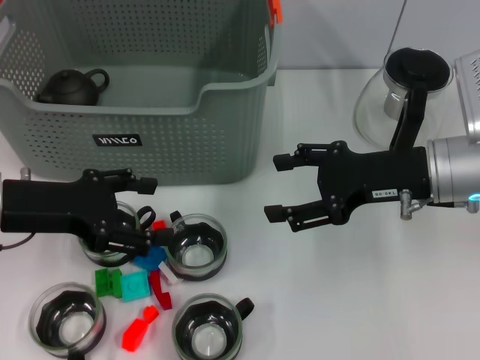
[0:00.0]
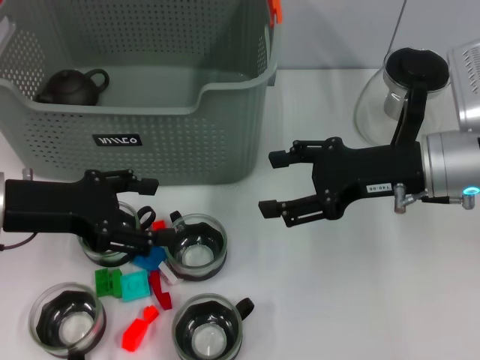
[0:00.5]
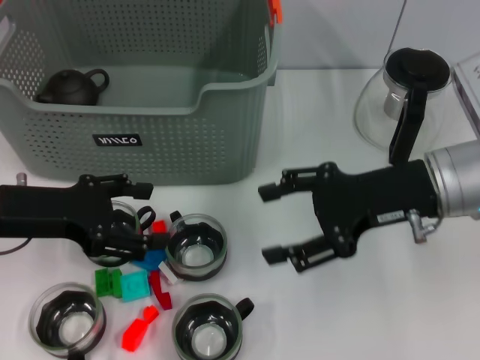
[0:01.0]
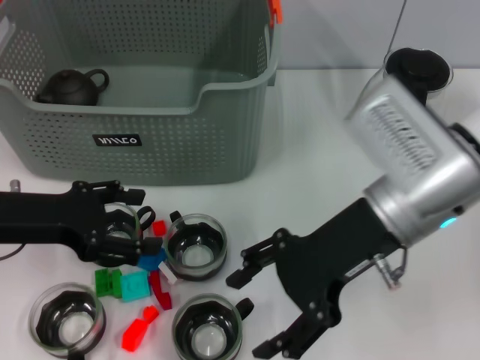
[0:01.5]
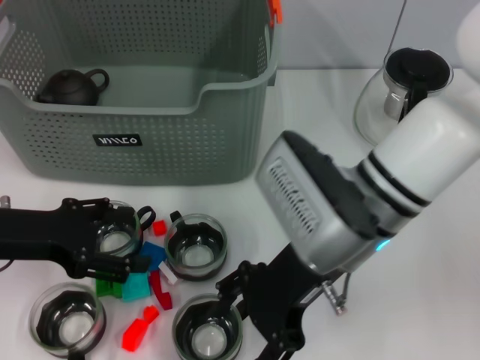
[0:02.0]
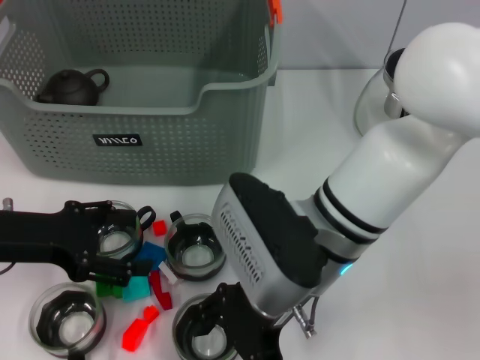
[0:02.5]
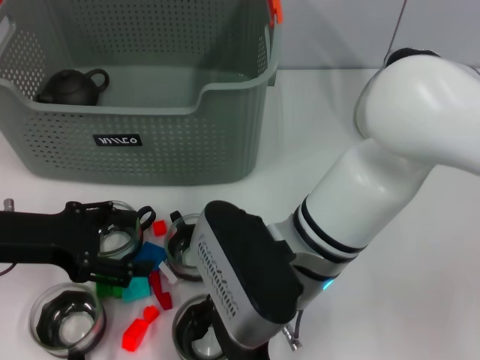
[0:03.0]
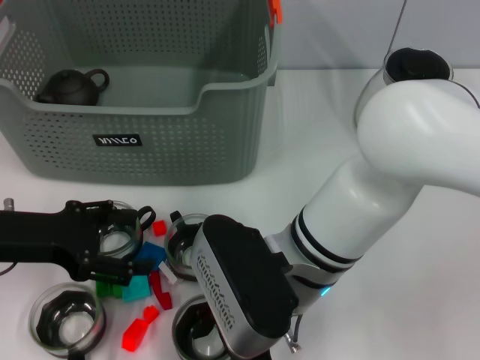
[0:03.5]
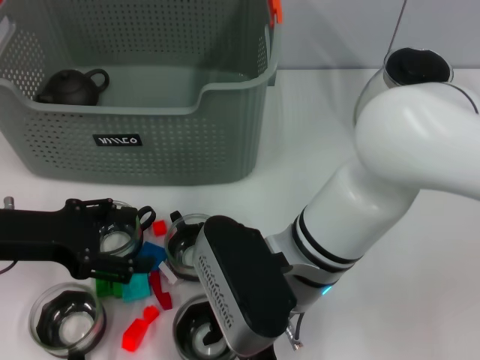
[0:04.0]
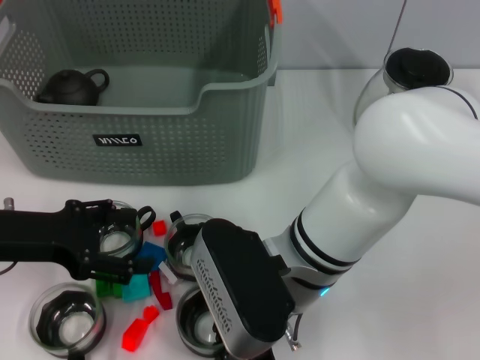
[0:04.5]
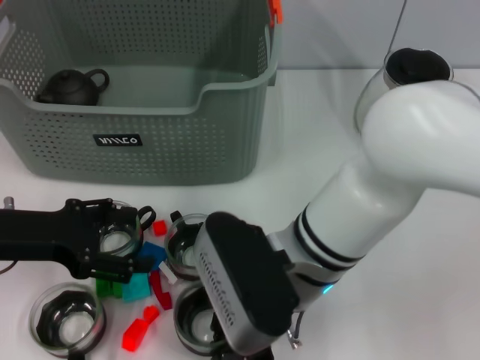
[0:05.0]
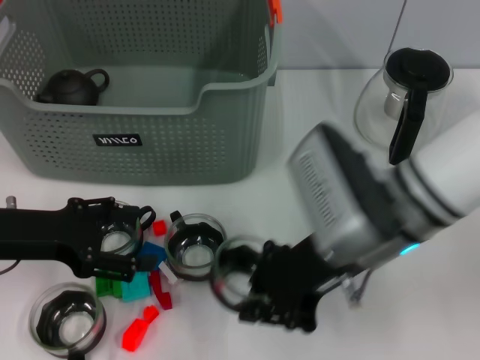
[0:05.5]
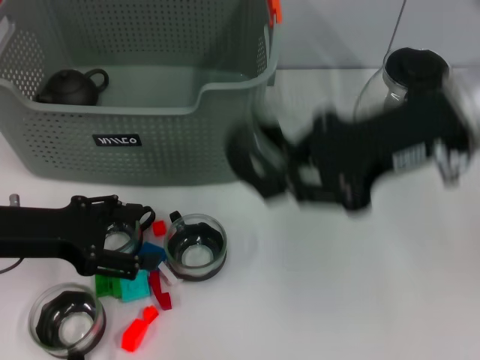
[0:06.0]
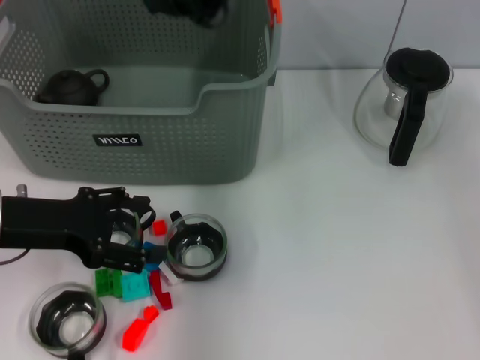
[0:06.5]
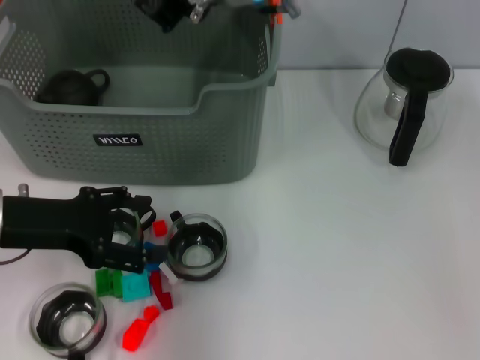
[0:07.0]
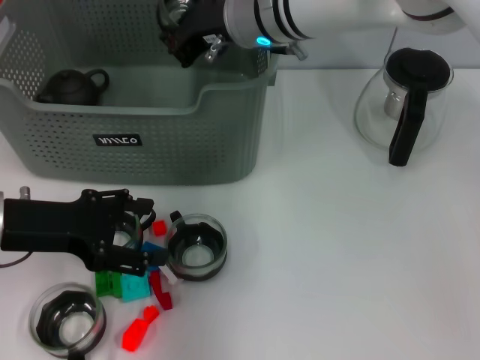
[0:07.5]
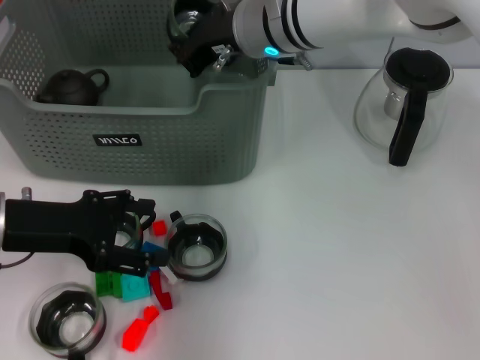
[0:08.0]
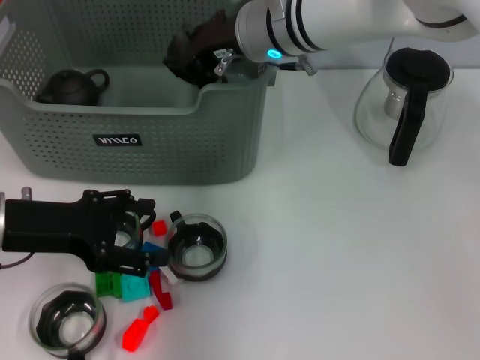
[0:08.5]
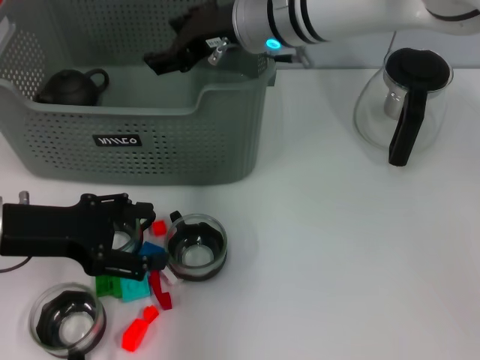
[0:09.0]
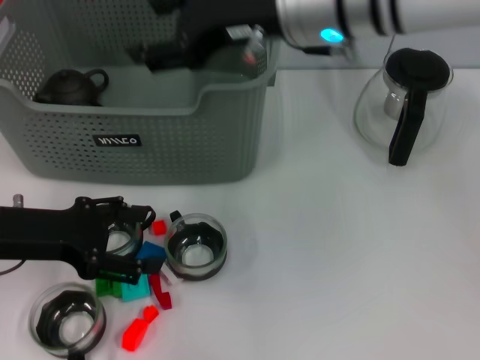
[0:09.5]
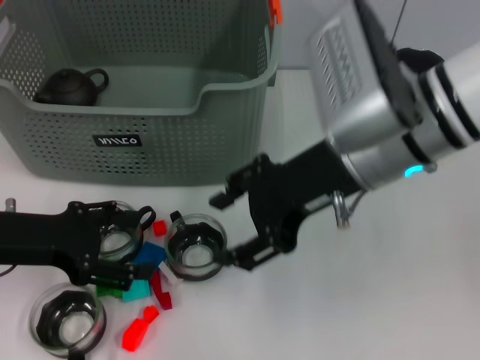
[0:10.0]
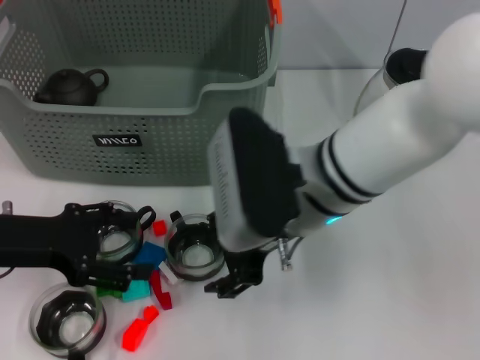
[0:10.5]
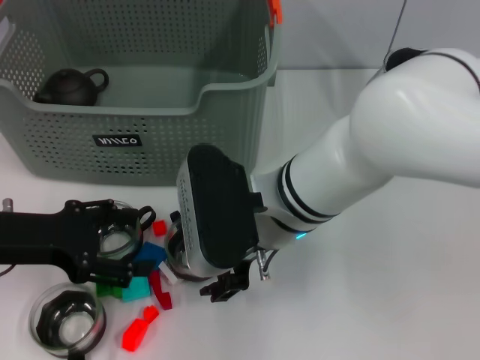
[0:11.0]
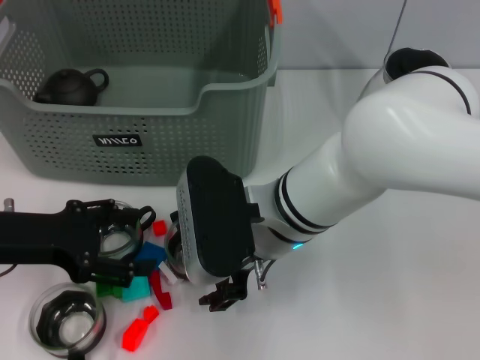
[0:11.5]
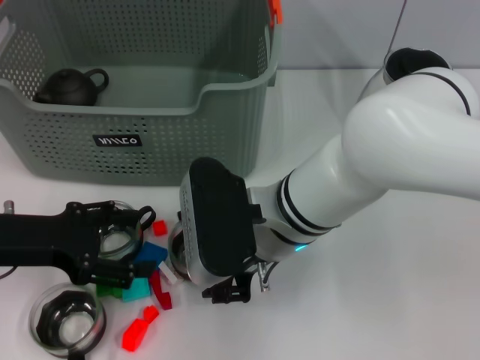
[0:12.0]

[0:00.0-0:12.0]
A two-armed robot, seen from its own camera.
Task of the whole recording: pick up the teacup on the table and place it into the storage bin, pick up the block on the table and place it into the storage bin.
Step, 0.0 to 5.0 s: Grasp the cup with right gripper.
Step, 5.5 to 9.0 s: Place the cup in the storage box with right gripper.
0.0 to 2.0 s: The right gripper shifts about 10 cm to the left.
2.0 to 4.0 s: The right gripper changes place by some 5 cm.
4.0 to 6.0 s: The right gripper heads upward and to the right, covering roughly 20 cm, and closes.
6.0 to 8.0 s: The right gripper travels to the left and forward by about 20 cm.
8.0 to 10.0 s: The right gripper is displaced backward and to the right by about 15 cm, and opens up.
10.0 to 12.0 s: The right gripper goes approximately 10 cm downward and to the left.

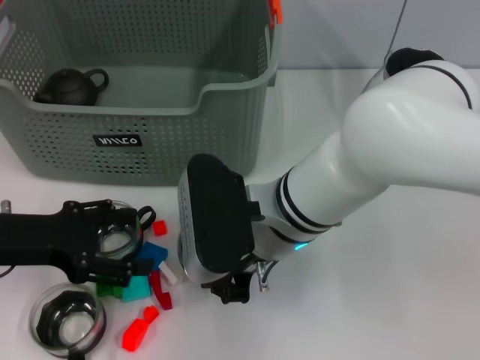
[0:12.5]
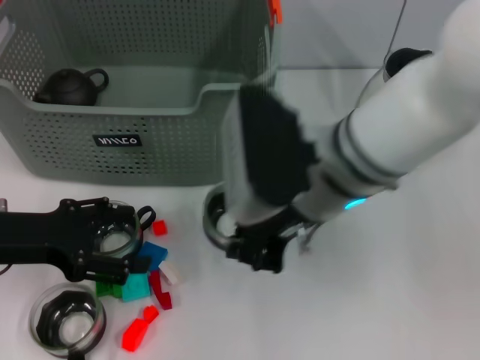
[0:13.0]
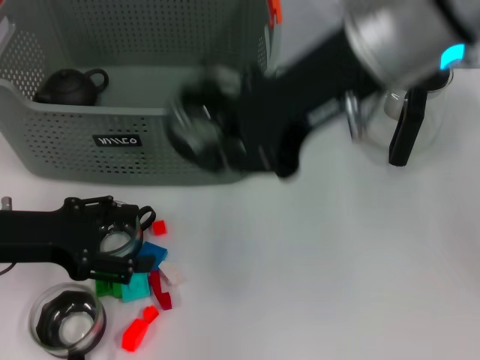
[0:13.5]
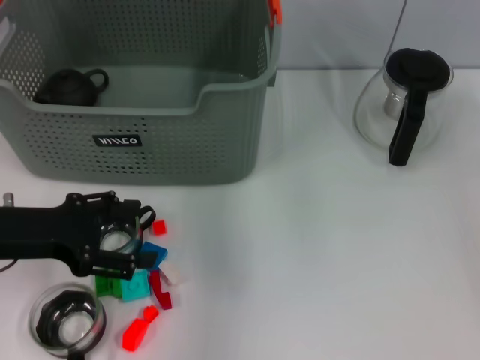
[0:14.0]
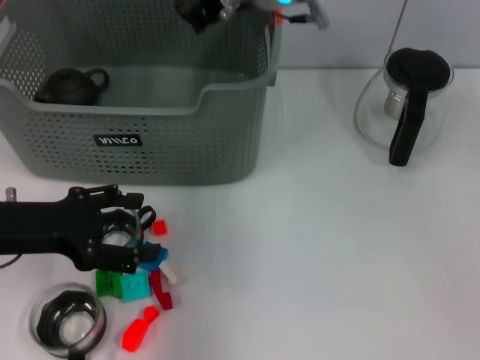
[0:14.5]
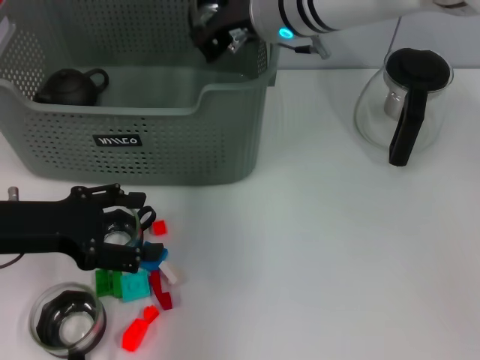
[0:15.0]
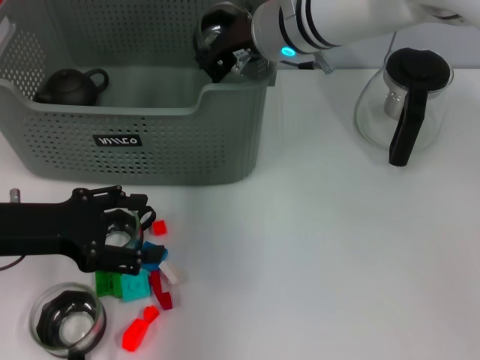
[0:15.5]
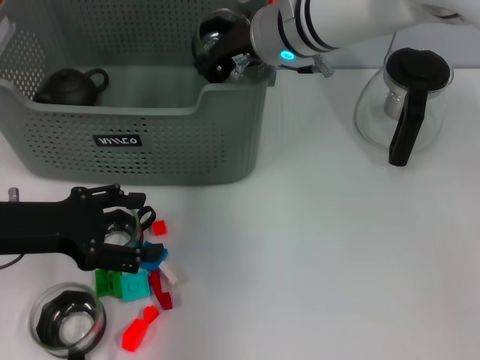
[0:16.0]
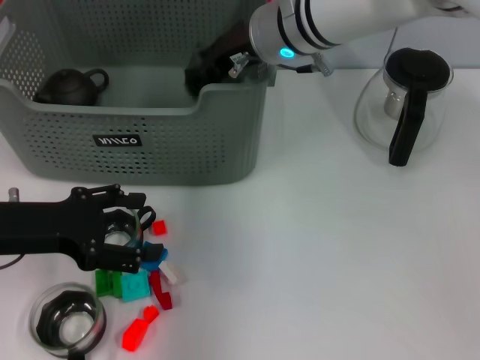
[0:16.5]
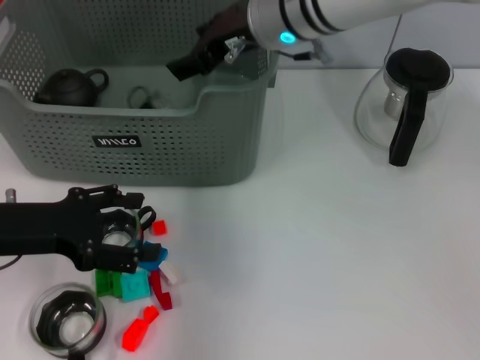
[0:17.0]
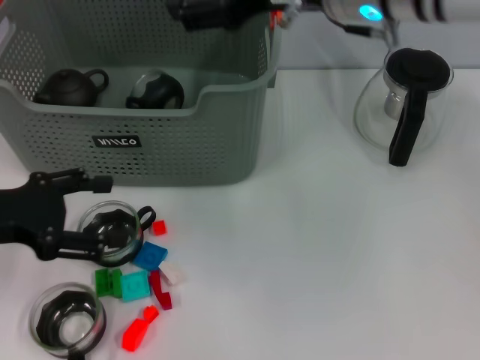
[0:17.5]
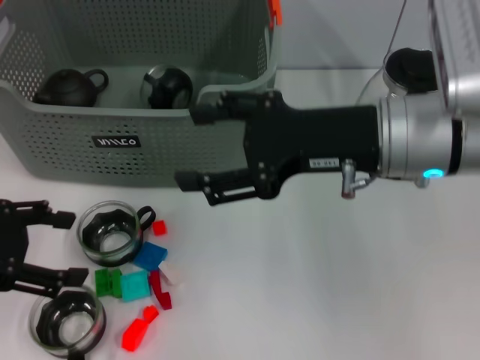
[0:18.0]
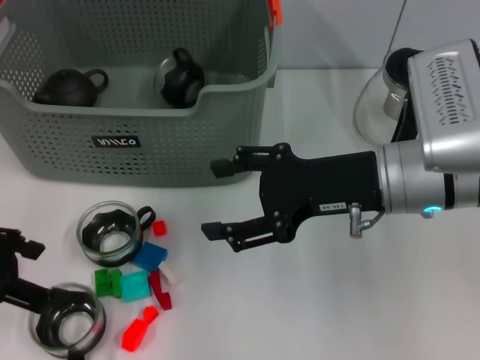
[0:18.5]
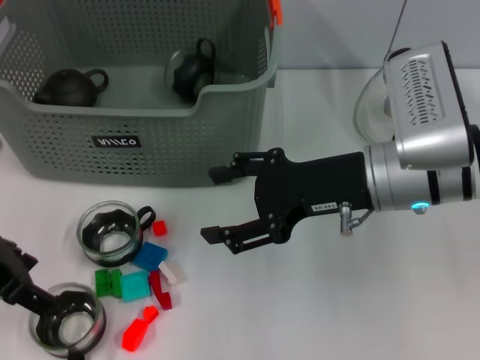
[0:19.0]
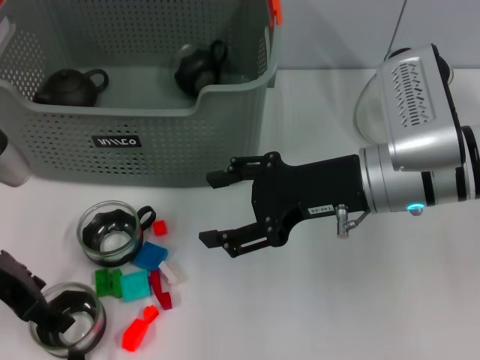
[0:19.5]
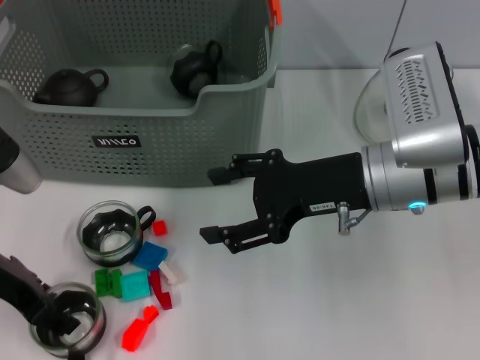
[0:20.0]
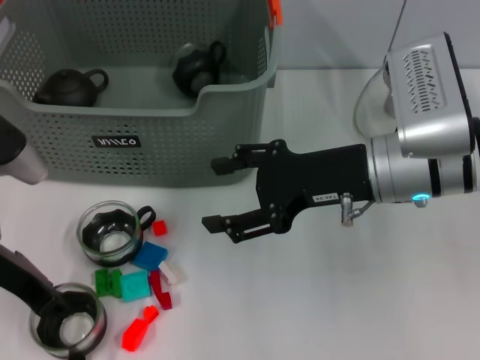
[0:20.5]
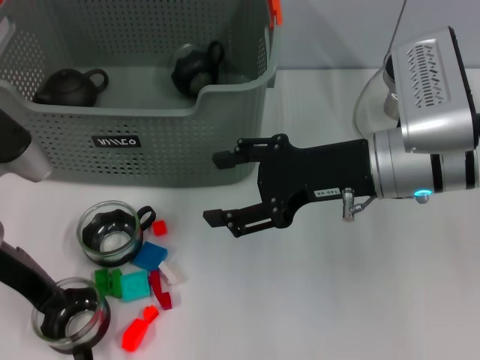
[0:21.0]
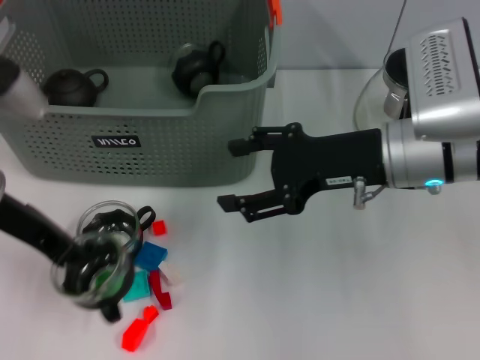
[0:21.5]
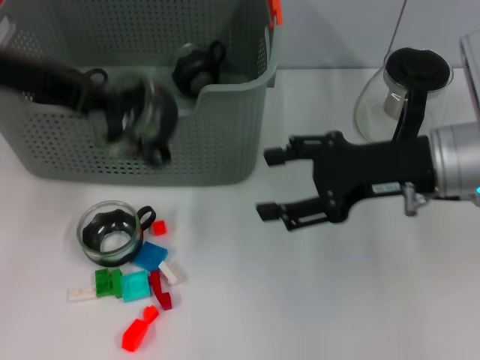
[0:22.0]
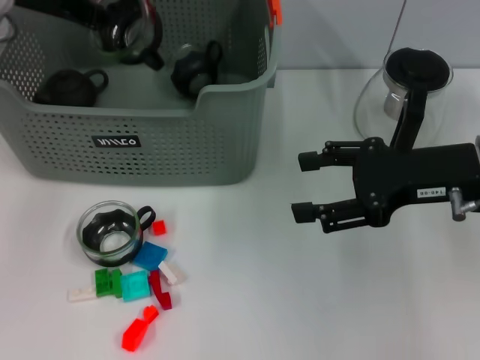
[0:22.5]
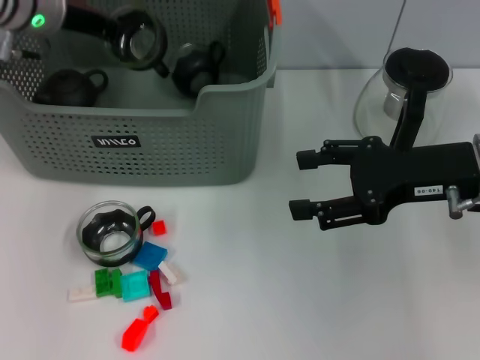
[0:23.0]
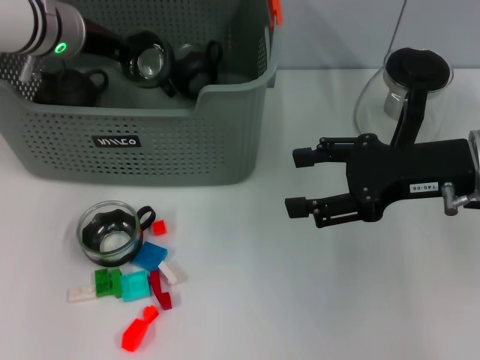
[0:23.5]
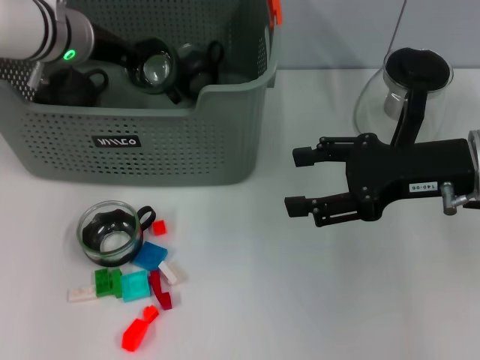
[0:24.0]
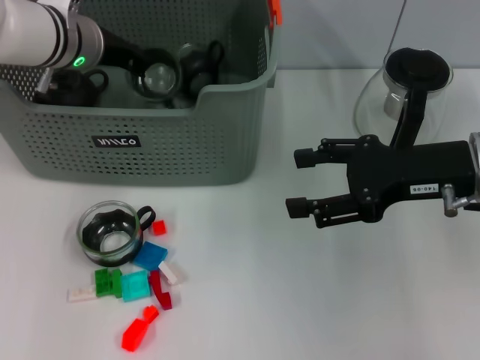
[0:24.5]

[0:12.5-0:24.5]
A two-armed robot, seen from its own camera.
Task of the whole recording: pick up the teacup on the table and place it into the storage bin, pick up the block on the table and place it into the storage bin.
Step, 13.0 to 17.0 s: Place the cup in the storage box with right gripper.
Step, 17.5 to 20.5 s: Grasp the cup with left gripper.
12.5 to 14.5 s: The right gripper travels forward and upward by some 20 cm.
14.5 to 16.5 s: The grippers stay close to where they were, moving slightly.
16.5 to 18.5 s: The left gripper goes roughly 5 cm upward; the right gripper heads backward and to the right, covering approximately 15 cm, and opens.
18.5 to 20.5 s: The left gripper shifts by some 5 cm, and closes its fingers.
20.5 to 22.5 s: The right gripper goes roughly 10 cm to the right, while the left gripper heads forward and upward, covering some 20 cm, and closes up.
22.5 to 24.5 s: The left gripper travels downward and to the right by some 10 cm.

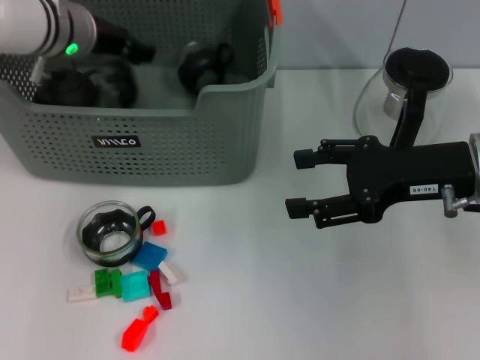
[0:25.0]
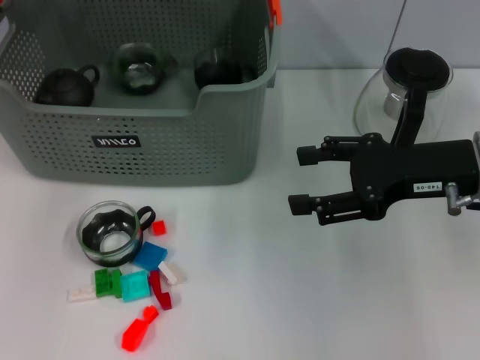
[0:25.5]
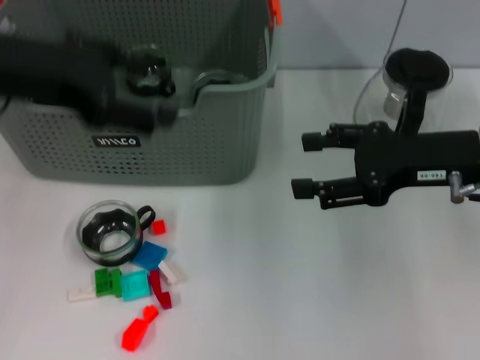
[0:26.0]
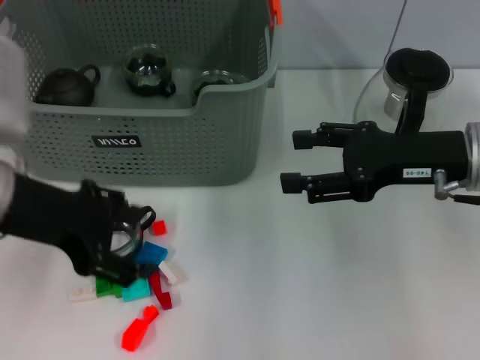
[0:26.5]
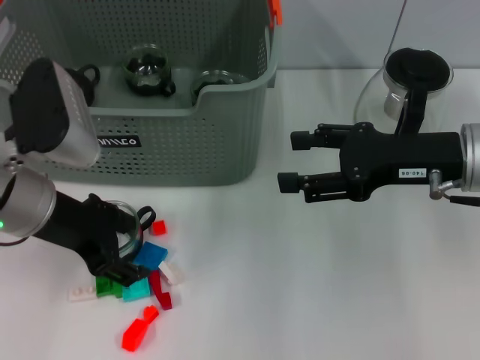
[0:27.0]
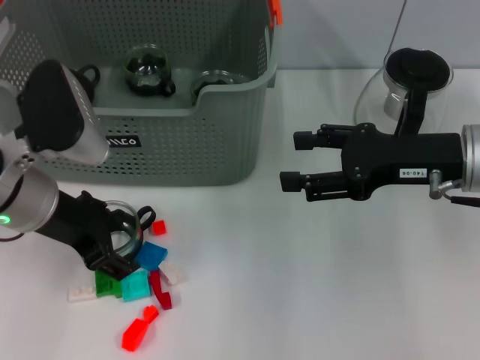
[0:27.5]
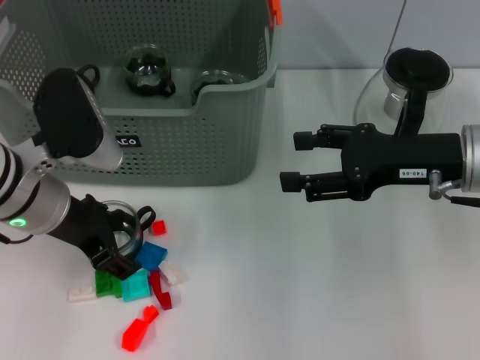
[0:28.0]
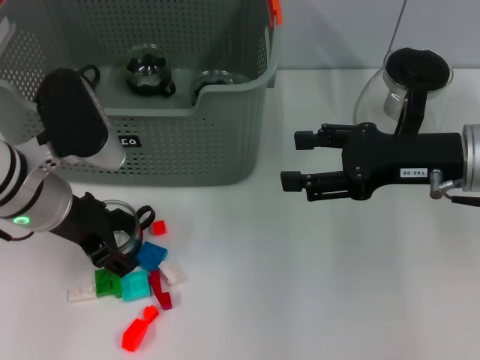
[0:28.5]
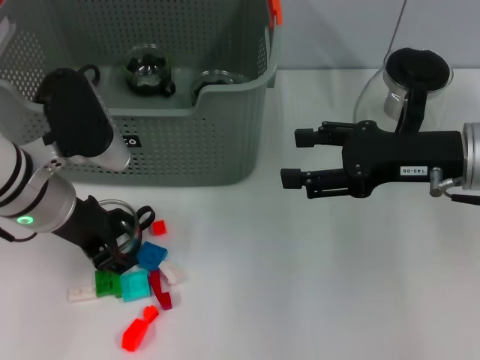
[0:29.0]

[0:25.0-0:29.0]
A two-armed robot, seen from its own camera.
Task of the whole recording: pick up the teacup on the table and place it into the storage bin, pick up the block on the table and place it into the storage bin.
25.0 to 27.0 s: The left gripper heads backward, covering approximately 15 cm, and opens up.
27.0 to 29.0 s: The grippers stay close to where they were, moving slightly.
